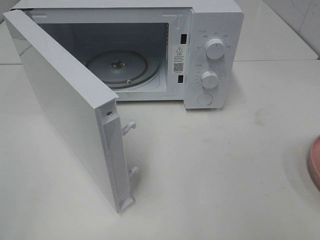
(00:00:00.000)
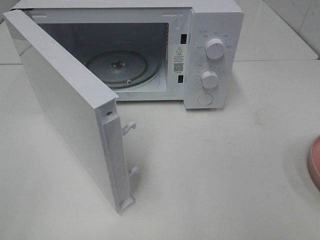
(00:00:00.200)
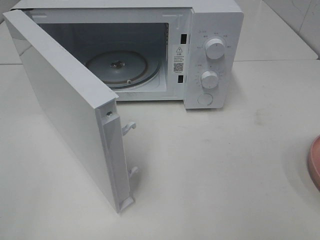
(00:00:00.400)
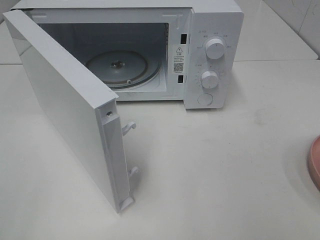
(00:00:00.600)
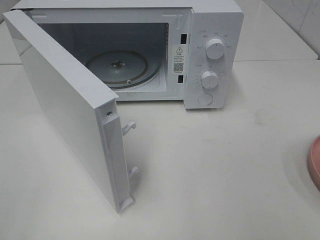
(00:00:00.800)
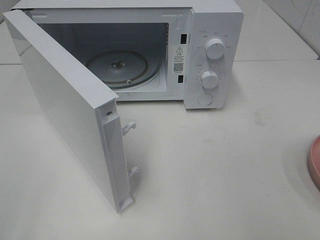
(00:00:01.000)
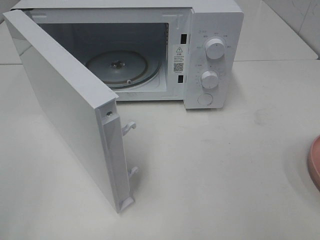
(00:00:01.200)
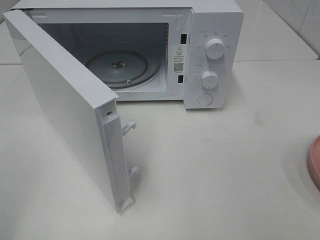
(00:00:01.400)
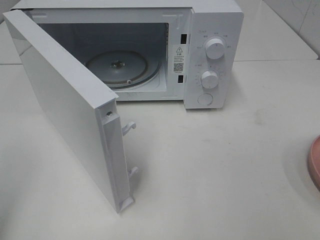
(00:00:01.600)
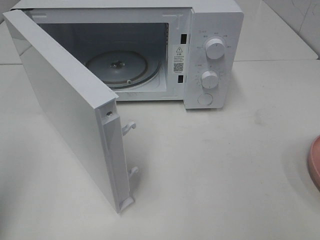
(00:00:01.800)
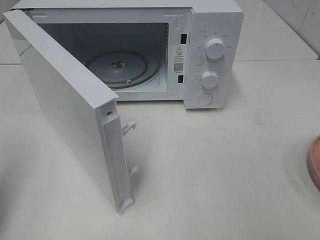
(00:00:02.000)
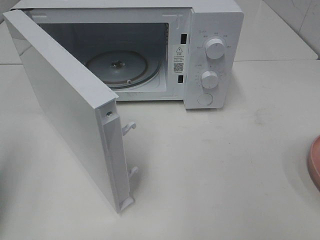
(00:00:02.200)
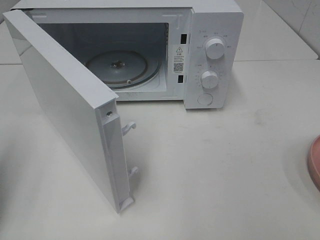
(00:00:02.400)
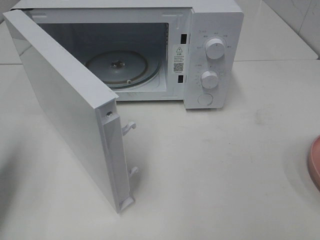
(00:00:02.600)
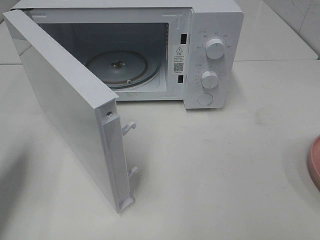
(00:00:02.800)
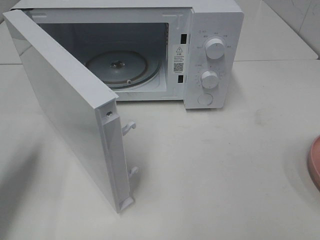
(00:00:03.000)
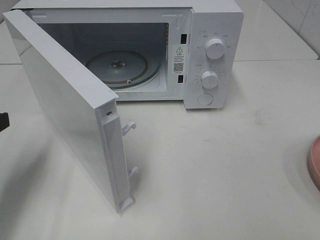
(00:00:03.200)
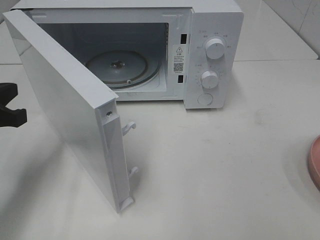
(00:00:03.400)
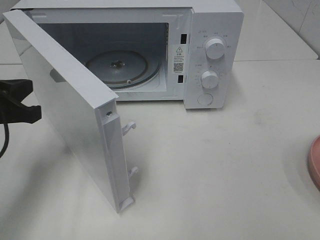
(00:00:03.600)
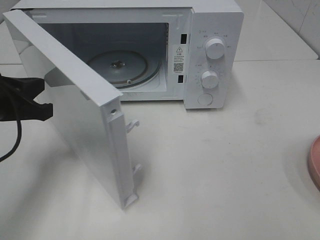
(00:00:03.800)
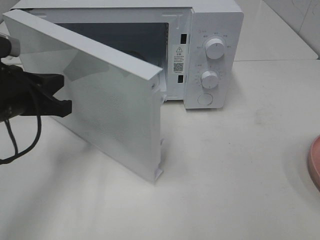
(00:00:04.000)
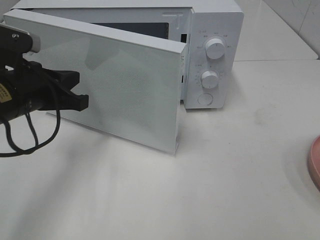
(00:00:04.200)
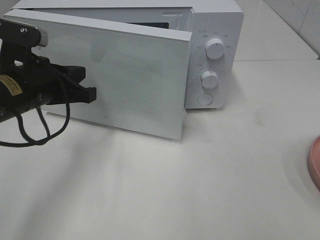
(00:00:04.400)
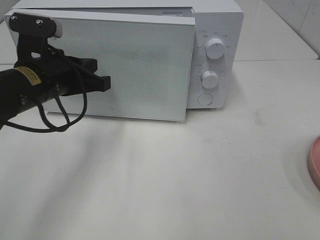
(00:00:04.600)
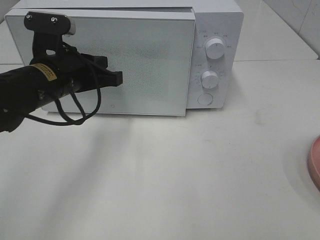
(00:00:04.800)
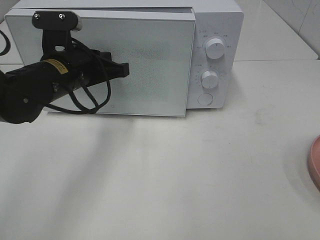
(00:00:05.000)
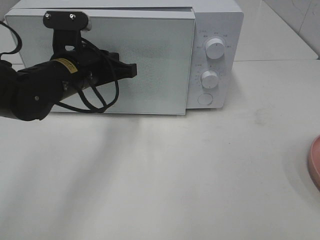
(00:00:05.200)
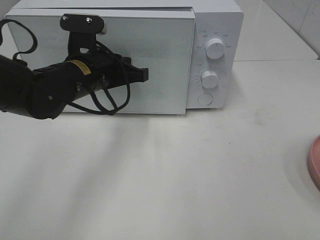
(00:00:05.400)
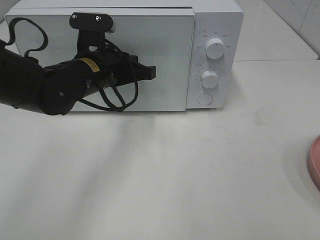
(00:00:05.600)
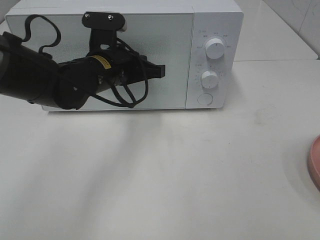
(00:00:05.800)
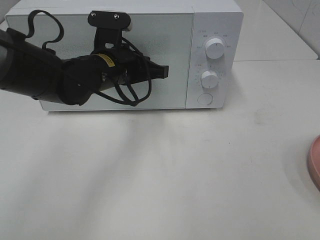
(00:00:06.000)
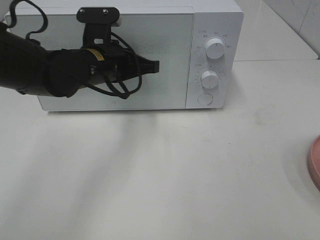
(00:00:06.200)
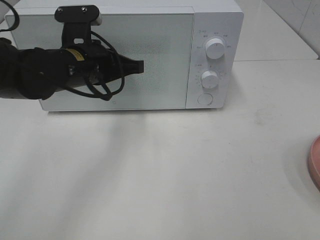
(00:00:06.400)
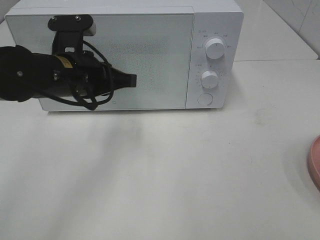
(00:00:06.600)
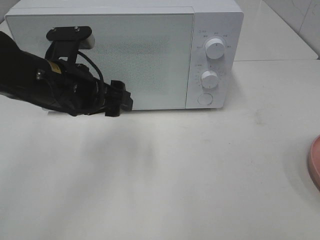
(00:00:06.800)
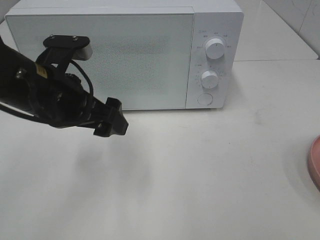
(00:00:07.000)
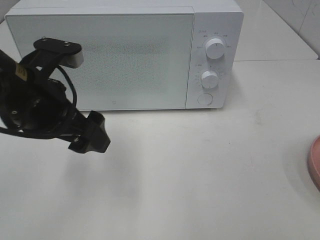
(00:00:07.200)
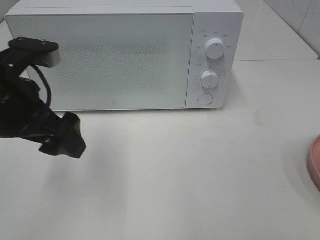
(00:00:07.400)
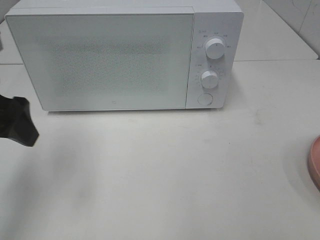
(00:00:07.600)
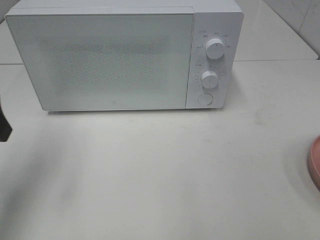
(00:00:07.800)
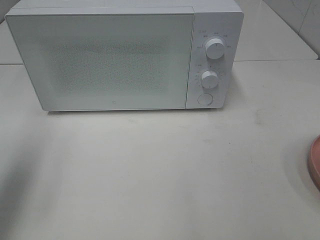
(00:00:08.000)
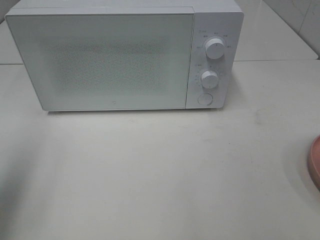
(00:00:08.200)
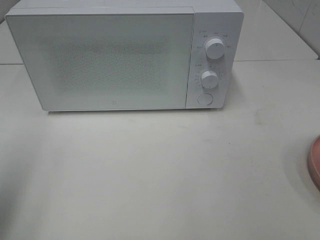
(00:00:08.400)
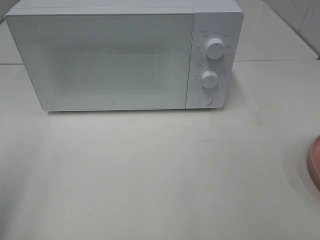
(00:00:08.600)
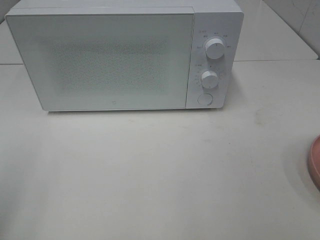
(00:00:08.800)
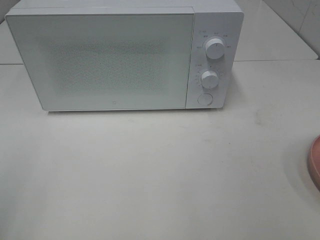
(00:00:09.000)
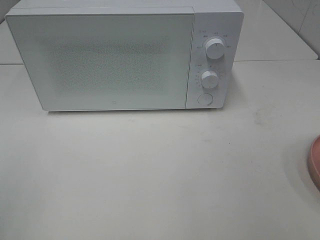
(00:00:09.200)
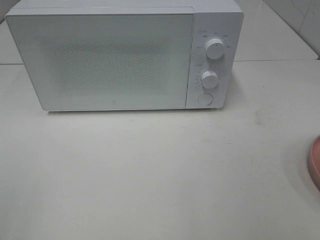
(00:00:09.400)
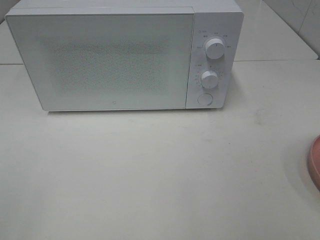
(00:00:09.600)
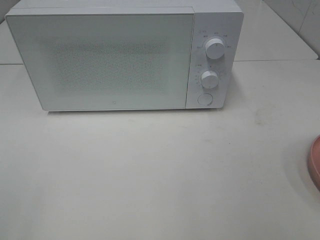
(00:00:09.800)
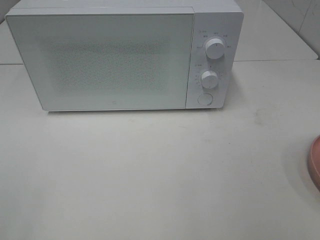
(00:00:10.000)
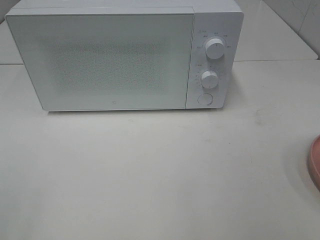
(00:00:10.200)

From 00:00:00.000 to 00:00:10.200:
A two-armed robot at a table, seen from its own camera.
Task of the whole recording: Heat the burger.
Step, from 00:00:00.000 to 00:00:06.400: Left hand: close the microwave door.
From 00:00:01.400 to 00:00:03.000: The left gripper moves forward and downward, some 20 cm, and closes its fingers.
From 00:00:03.000 to 00:00:04.400: The left gripper goes roughly 15 cm to the right and forward.
From 00:00:04.400 to 00:00:05.800: The left gripper goes approximately 10 cm to the right and forward.
From 00:00:05.800 to 00:00:07.200: The left gripper is displaced backward, to the left and upward by roughly 15 cm, and opens up.
From 00:00:07.200 to 00:00:08.800: The left gripper shifts roughly 25 cm backward and to the left.
